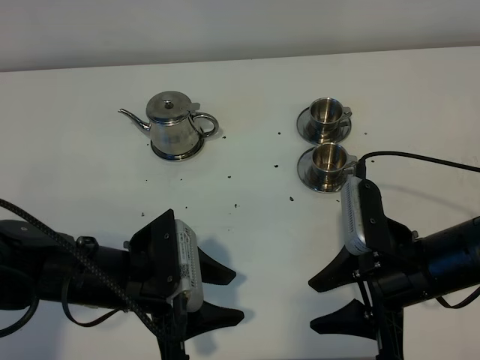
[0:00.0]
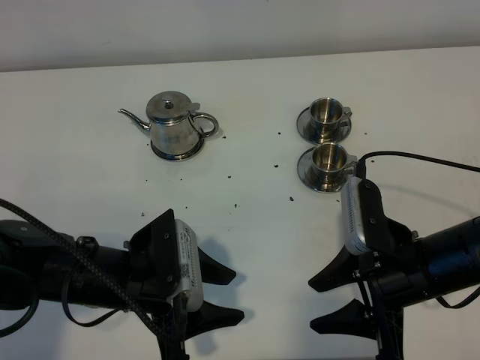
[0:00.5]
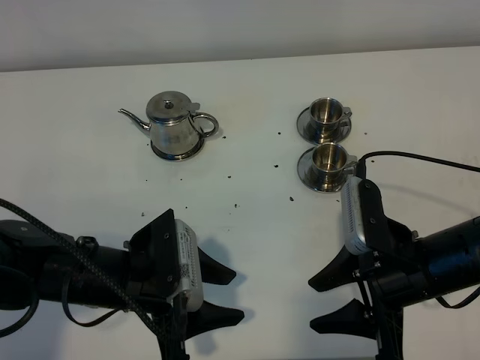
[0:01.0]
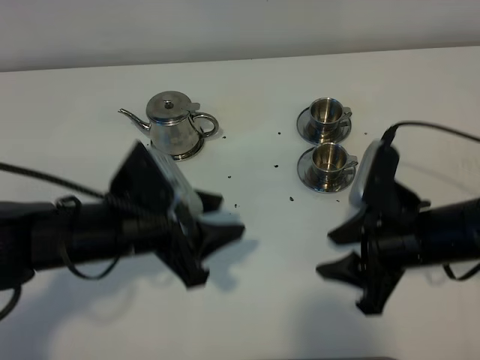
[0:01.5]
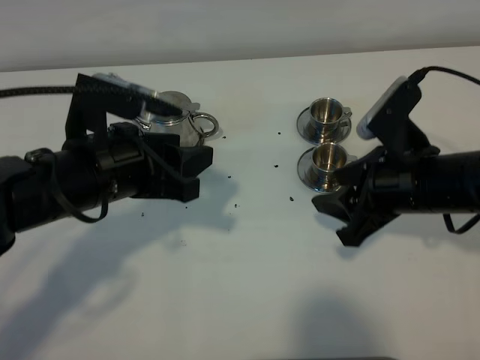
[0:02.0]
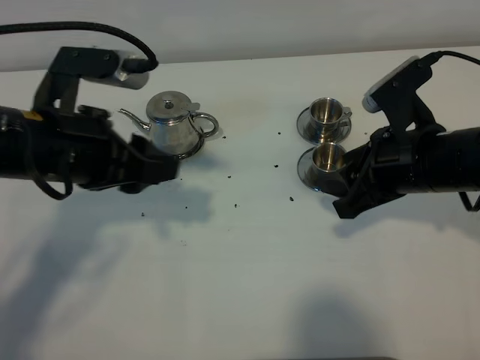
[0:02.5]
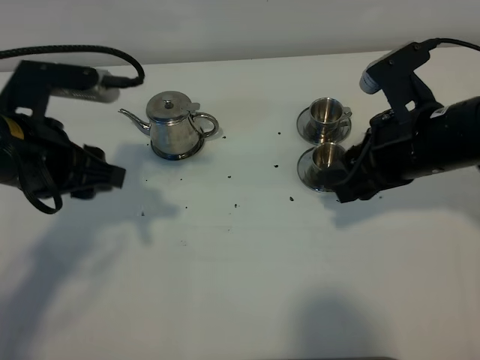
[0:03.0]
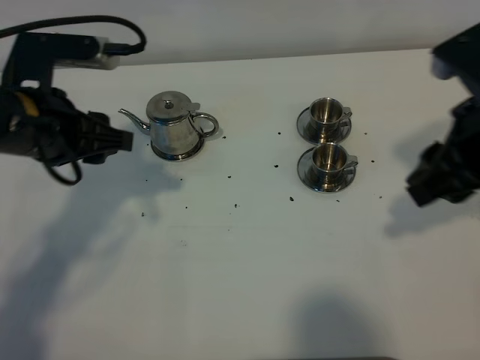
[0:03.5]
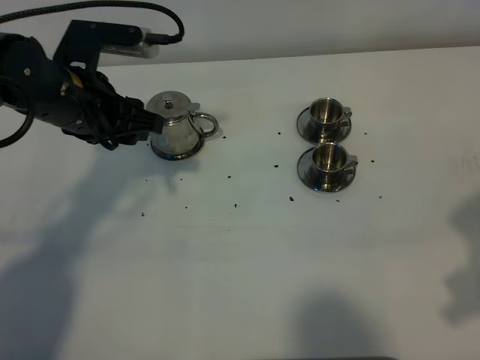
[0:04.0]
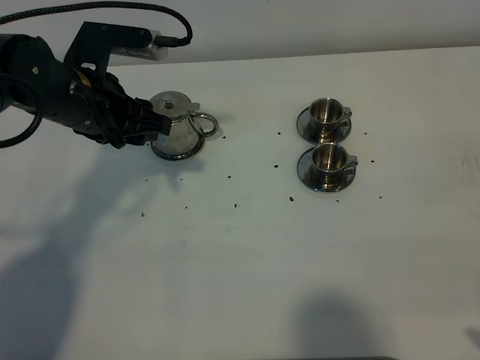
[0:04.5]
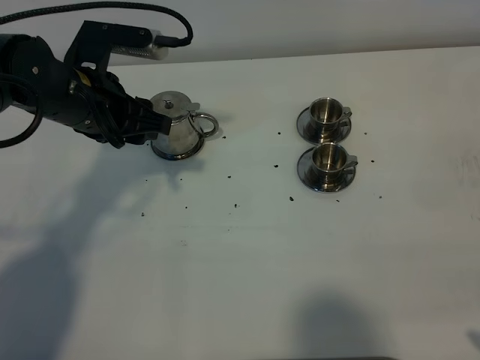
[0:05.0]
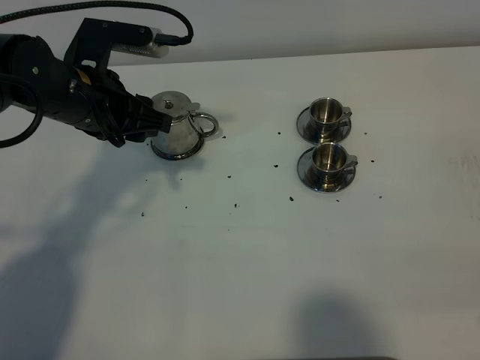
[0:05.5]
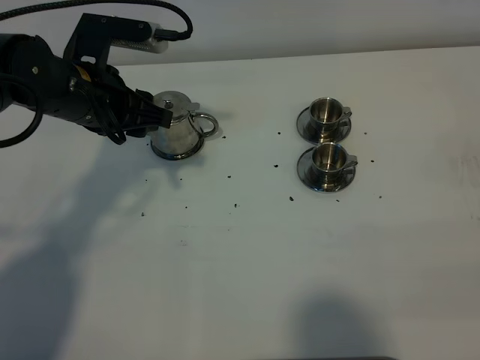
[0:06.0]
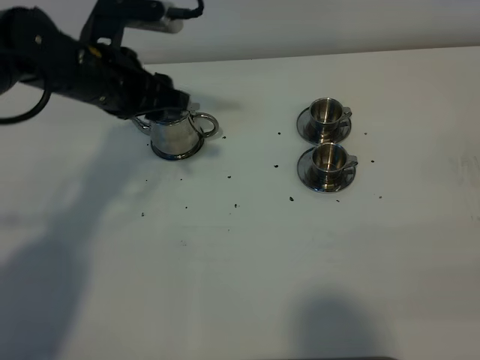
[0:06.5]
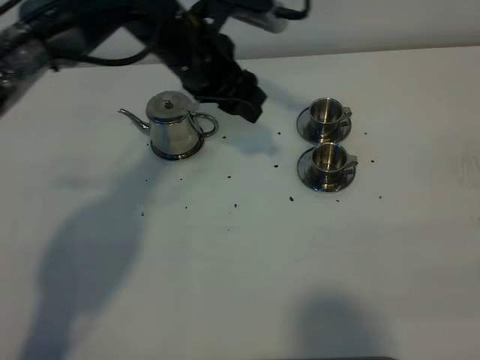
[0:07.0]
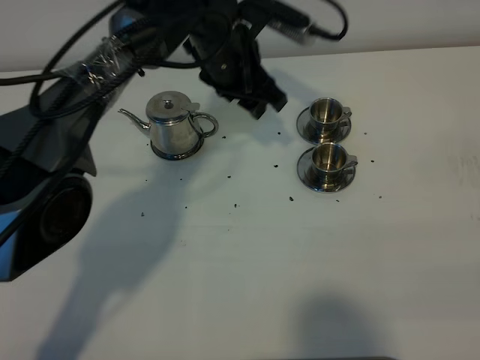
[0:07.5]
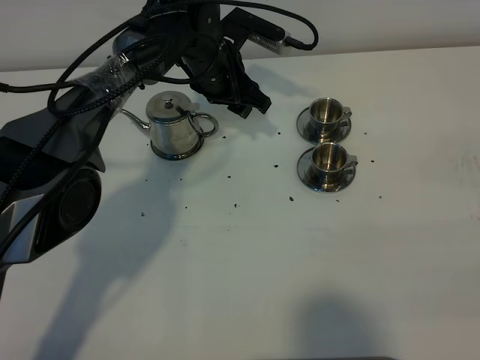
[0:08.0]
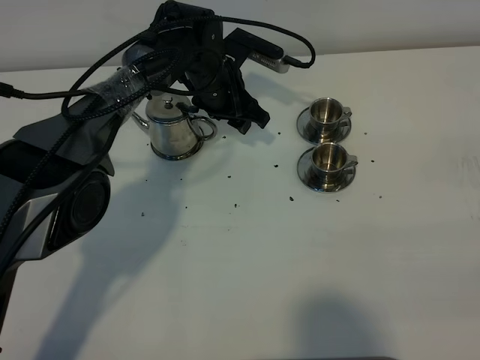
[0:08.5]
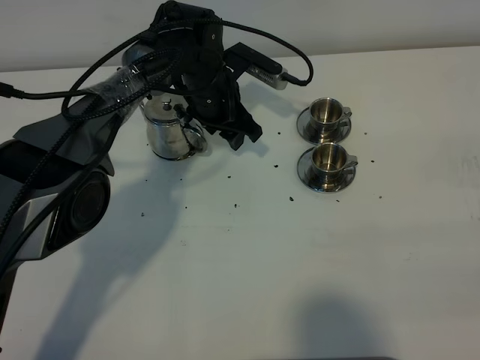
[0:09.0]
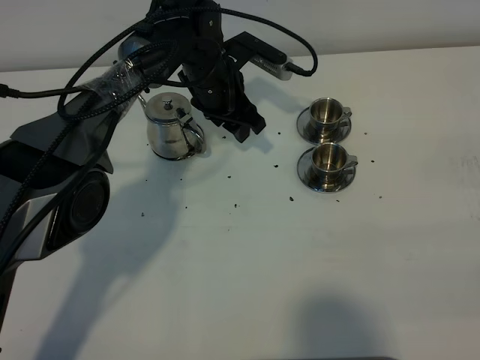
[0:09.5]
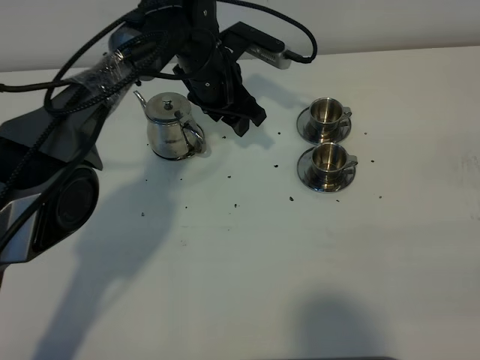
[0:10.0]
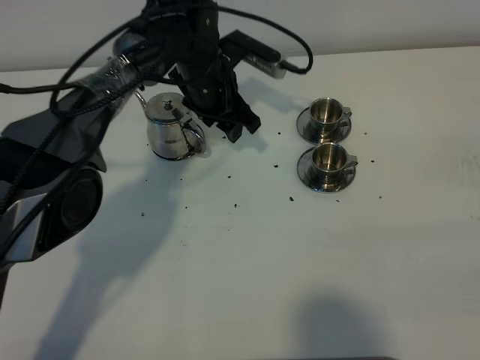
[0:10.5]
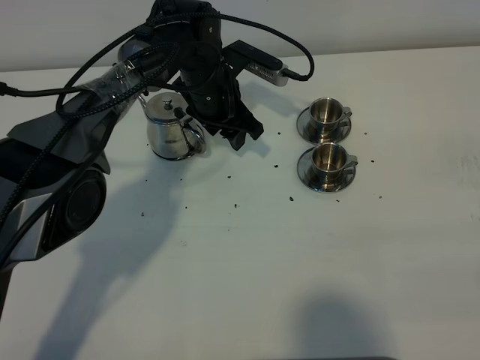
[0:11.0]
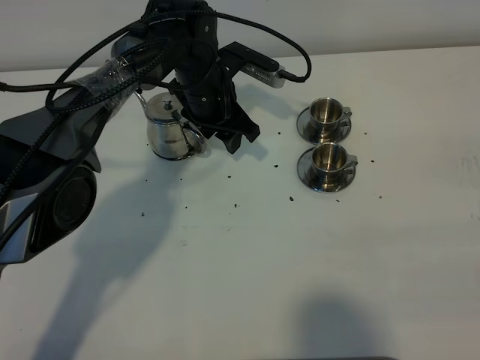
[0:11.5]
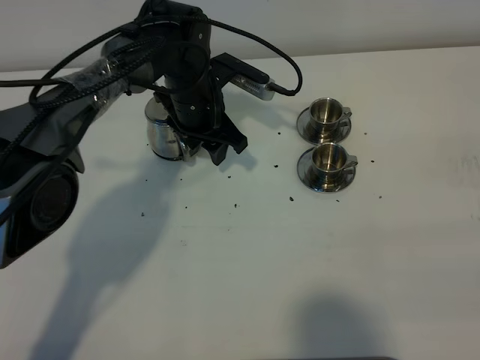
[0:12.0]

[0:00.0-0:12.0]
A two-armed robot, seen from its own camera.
Task of the whole recording: grasp the stainless steel teapot and pour the tea into the two stainless steel teacups one by one, put the stainless steel teapot back in its original place.
0:00.0 to 0:02.0: The right gripper goes roughly 10 cm forward and upward. Meanwhile the left gripper shifts about 10 cm upward and forward.
0:02.0 to 0:04.0: The right gripper goes approximately 20 cm backward, upward and to the right. Meanwhile the left gripper is displaced forward by about 10 cm.
0:04.0 to 0:06.0: The right gripper goes roughly 10 cm backward.
0:06.0 to 0:08.0: The left gripper goes roughly 20 cm forward, to the right and downward.
0:08.0 to 0:12.0: The grippers move only a little.

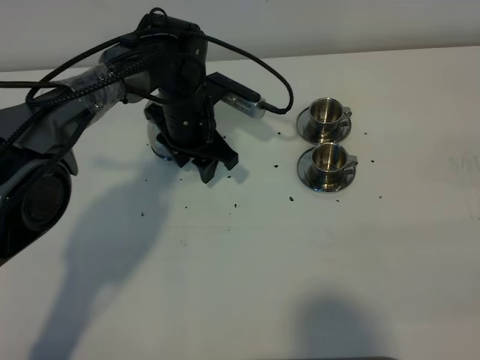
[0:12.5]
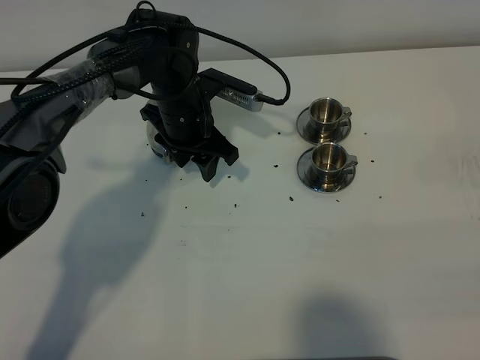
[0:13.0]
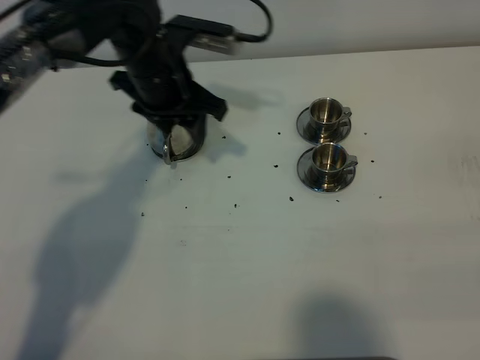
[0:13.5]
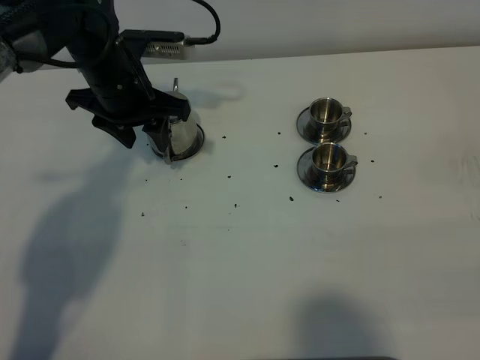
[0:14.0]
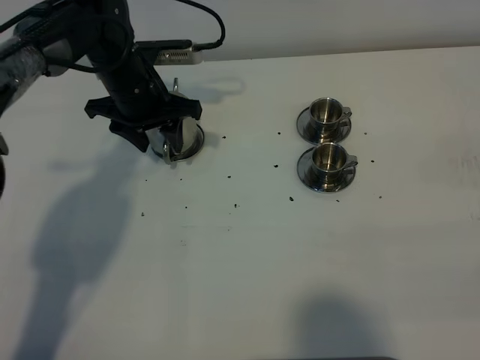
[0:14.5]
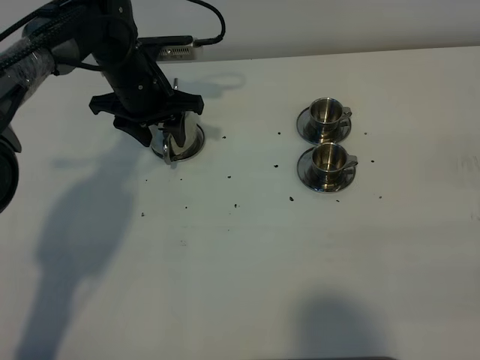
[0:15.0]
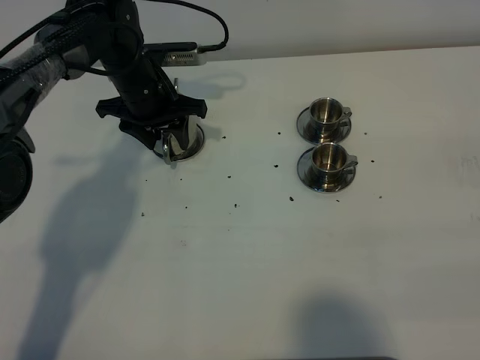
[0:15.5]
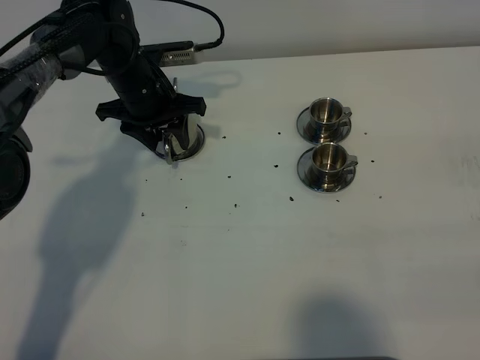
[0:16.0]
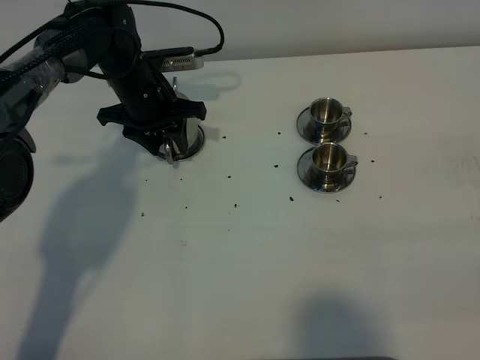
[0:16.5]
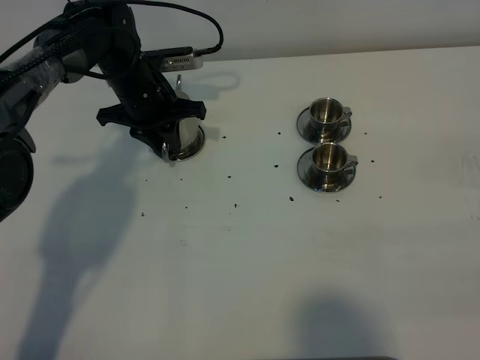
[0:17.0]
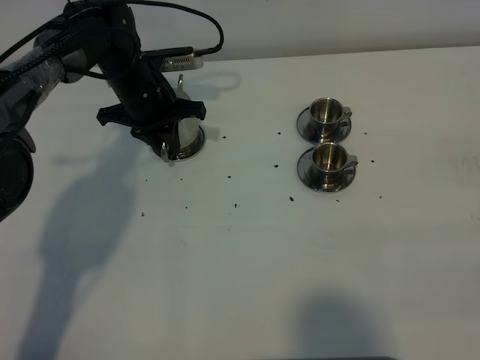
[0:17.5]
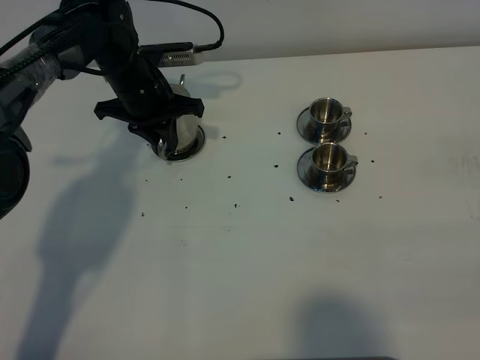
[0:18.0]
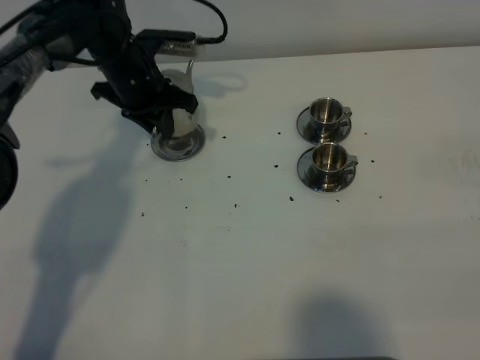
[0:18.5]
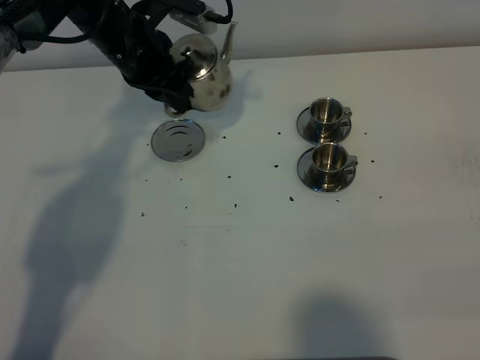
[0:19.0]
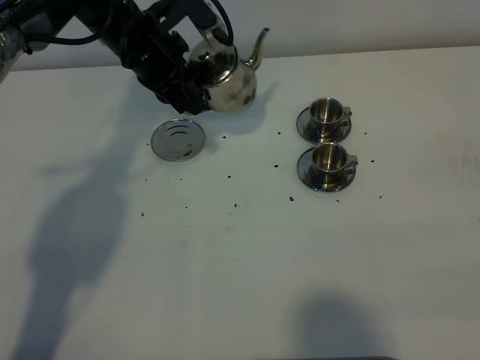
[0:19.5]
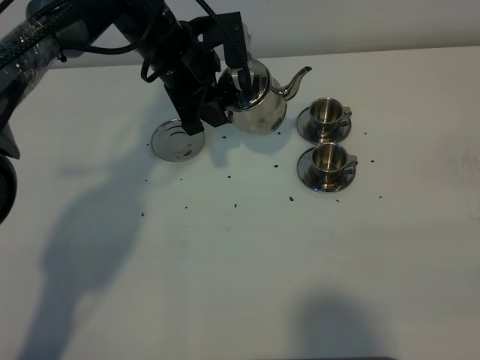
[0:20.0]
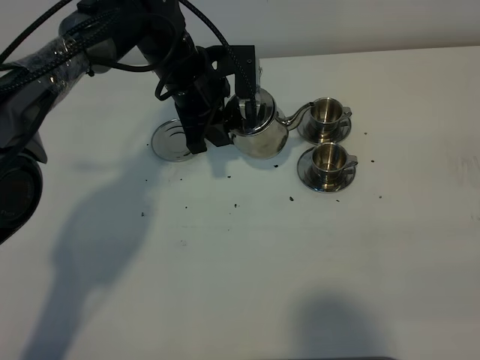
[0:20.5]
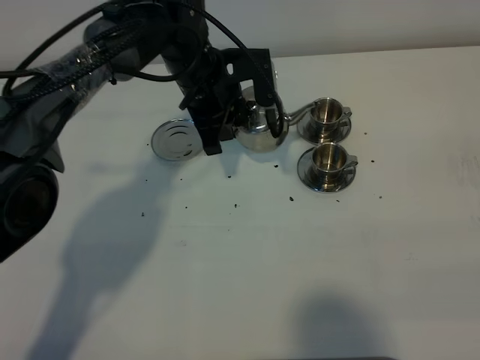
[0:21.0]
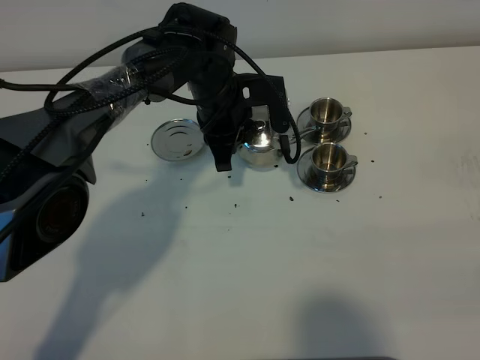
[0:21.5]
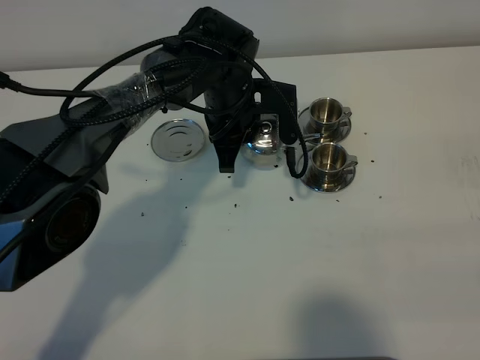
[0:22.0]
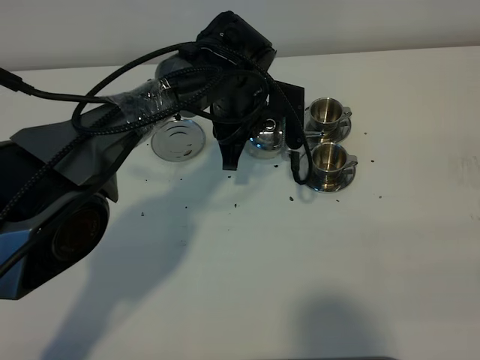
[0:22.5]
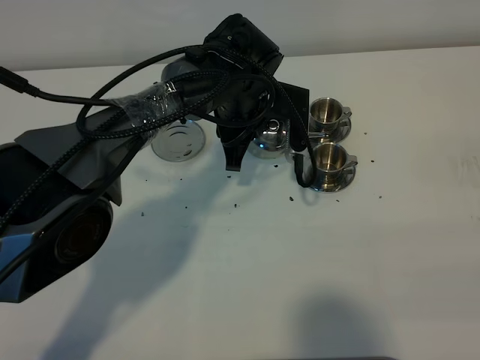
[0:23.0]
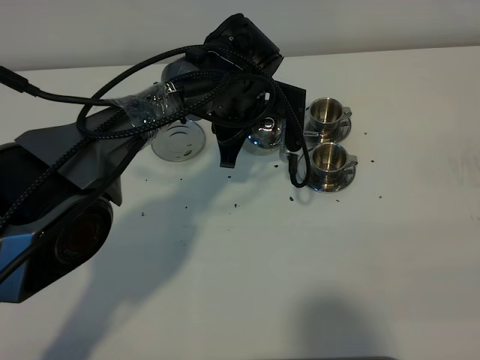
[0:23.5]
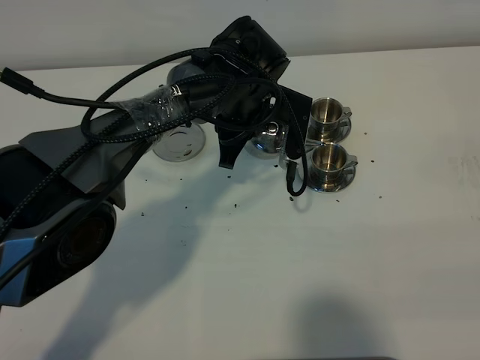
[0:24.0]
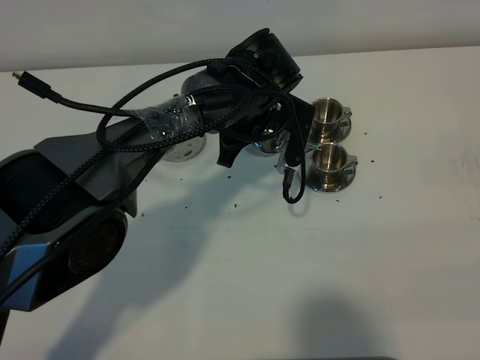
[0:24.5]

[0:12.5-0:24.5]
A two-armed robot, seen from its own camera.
Task of the whole recording: grasp the stainless steel teapot and pour the tea into the two stainless steel teacups one by one, put the stainless steel teapot back in its original place.
Step, 0:12.5 to 0:18.0: Pick up the teapot with the left gripper.
0:12.5 to 0:14.5: The left gripper goes about 5 cm to the left.
0:14.5 to 0:16.5: The grippers move only a little.
0:16.5 to 0:18.5: The left gripper closes.
0:18.5 to 0:20.5: The left gripper is displaced to the right by some 10 cm.
0:20.5 to 0:22.5: The left gripper heads to the right, covering roughly 5 cm.
0:22.5 to 0:24.5: The grippers stay close to where they were, moving slightly.

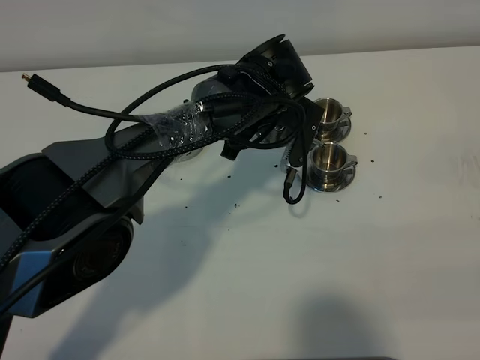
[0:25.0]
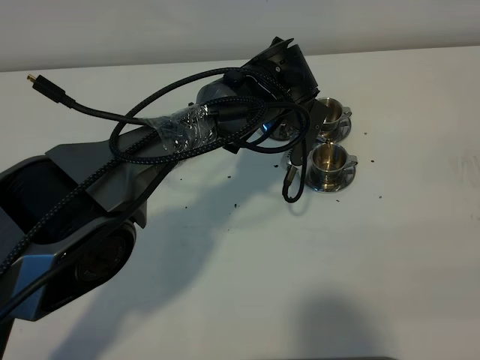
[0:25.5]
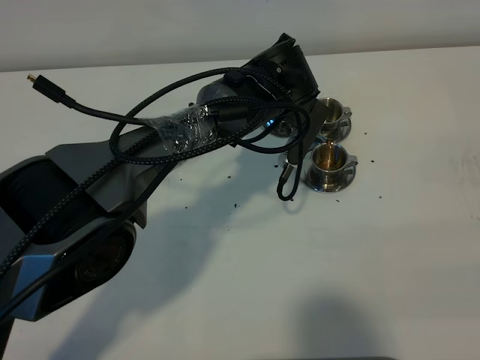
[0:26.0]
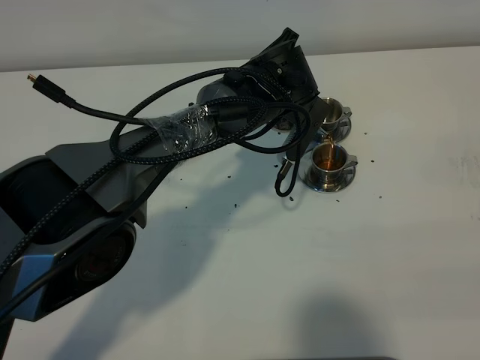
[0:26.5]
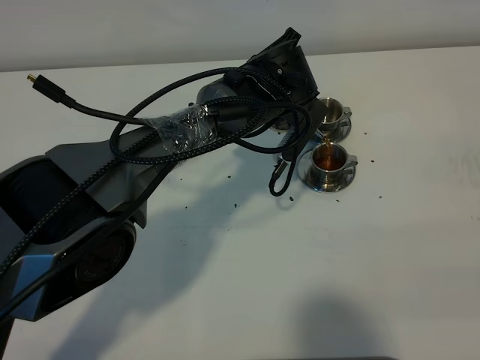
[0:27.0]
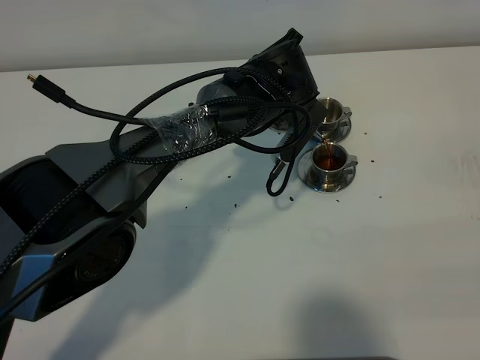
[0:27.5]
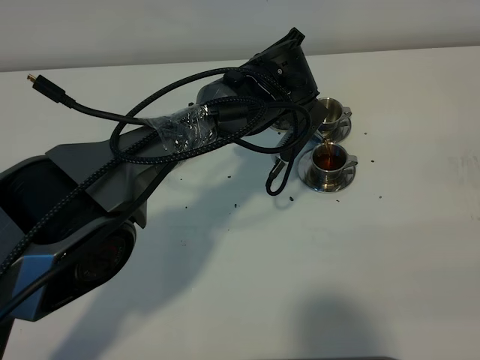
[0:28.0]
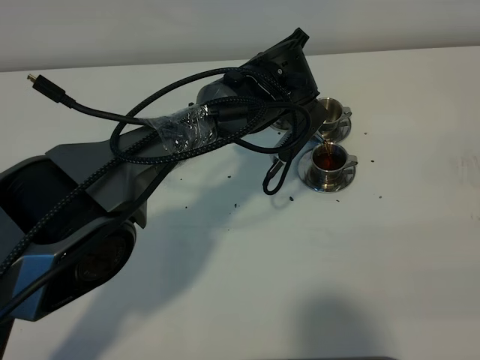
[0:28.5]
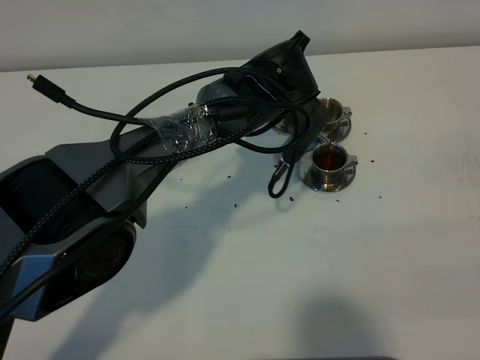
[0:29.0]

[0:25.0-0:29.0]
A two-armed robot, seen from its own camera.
Task of the whole recording: grasp the stainless steel teapot and pour the tea into the two stainless steel teacups one by one, put the stainless steel teapot back in its original place.
0:25.0 to 0:27.0: The grippers make only small movements.
